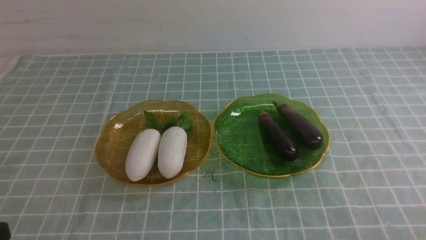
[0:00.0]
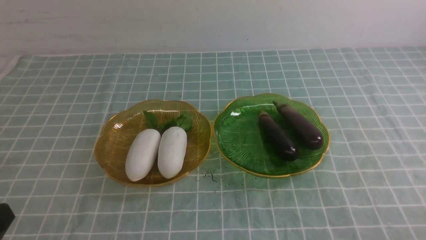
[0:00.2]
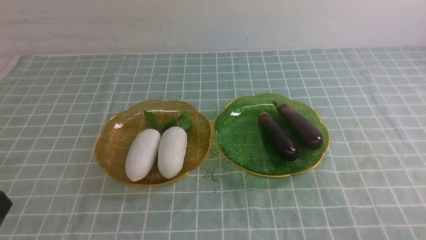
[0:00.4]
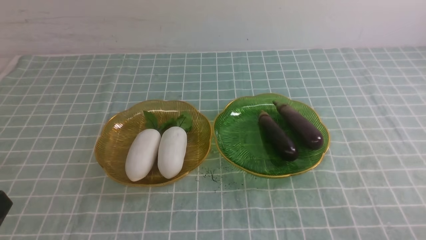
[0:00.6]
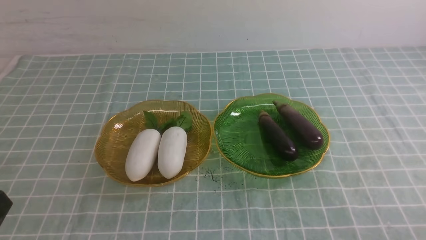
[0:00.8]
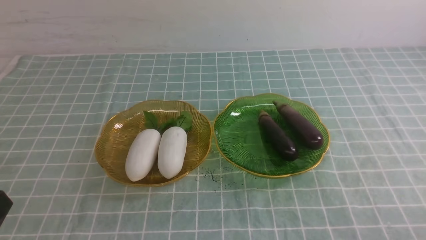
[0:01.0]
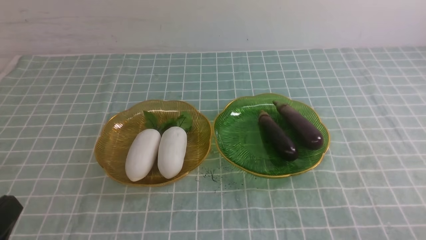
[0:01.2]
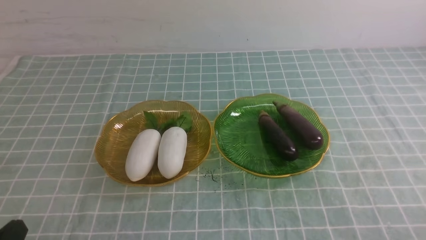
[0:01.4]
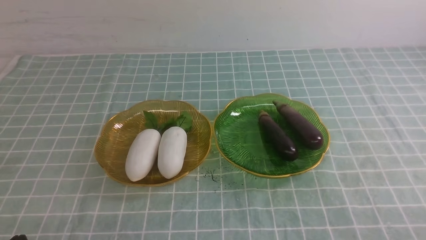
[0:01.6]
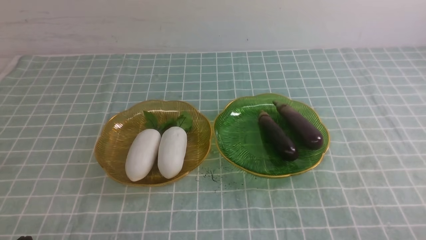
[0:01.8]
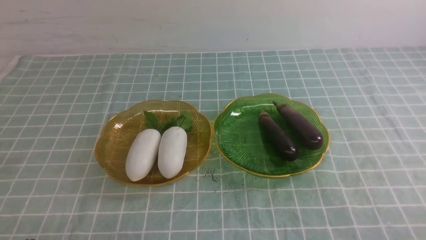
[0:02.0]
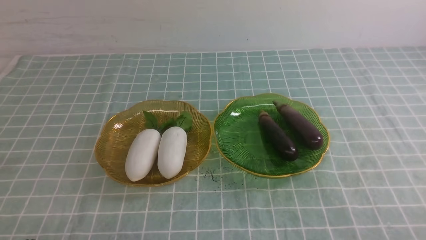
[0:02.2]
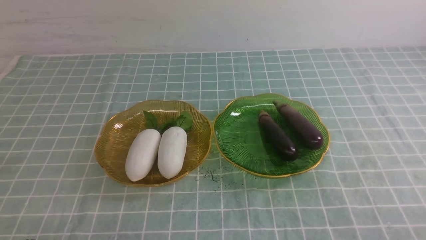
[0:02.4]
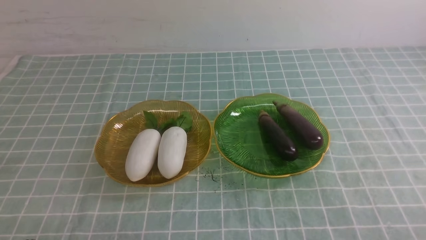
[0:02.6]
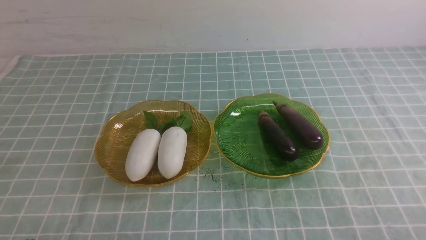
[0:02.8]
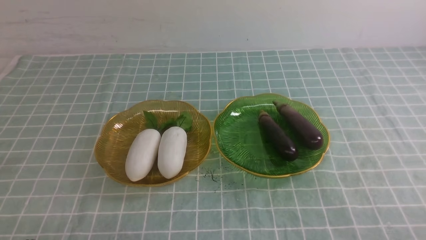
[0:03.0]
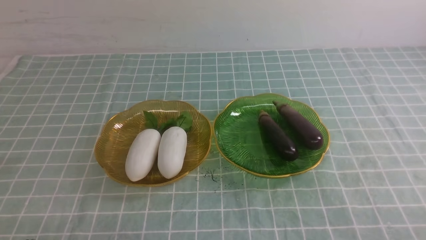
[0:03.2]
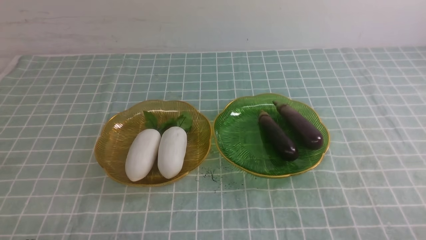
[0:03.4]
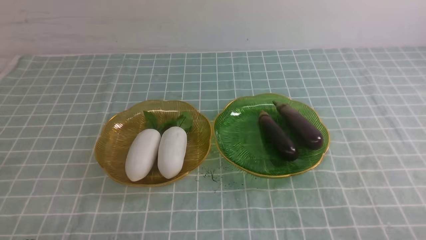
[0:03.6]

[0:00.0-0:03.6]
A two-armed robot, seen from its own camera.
0:01.8 to 0:03.6: The two grippers keep their place.
